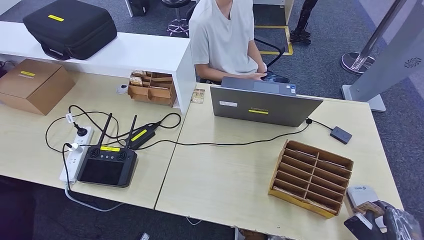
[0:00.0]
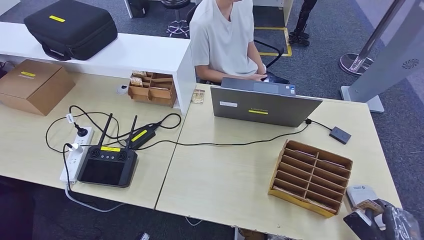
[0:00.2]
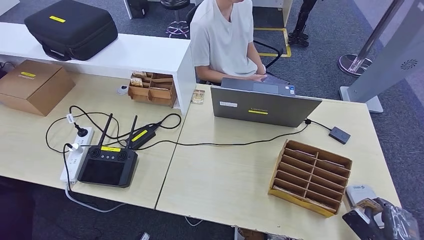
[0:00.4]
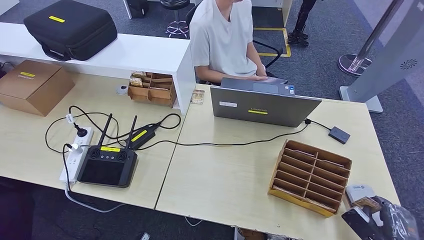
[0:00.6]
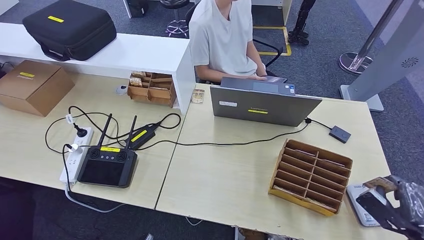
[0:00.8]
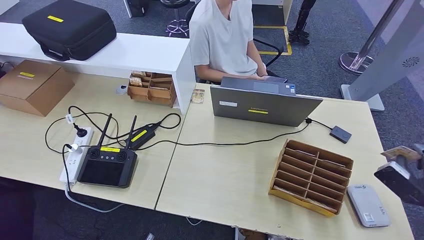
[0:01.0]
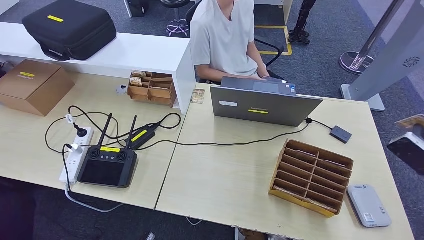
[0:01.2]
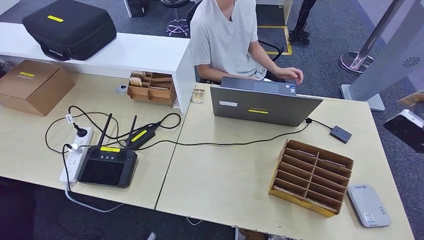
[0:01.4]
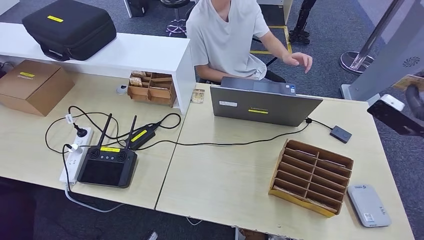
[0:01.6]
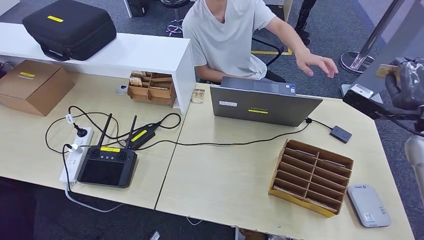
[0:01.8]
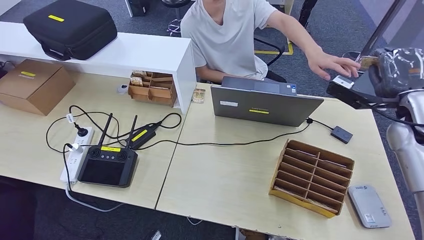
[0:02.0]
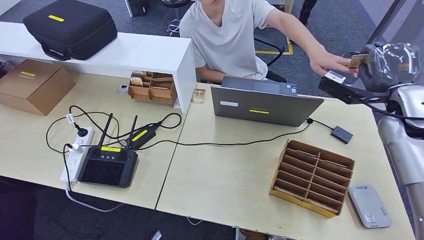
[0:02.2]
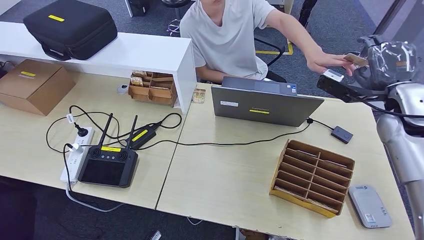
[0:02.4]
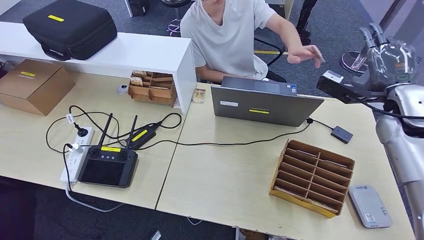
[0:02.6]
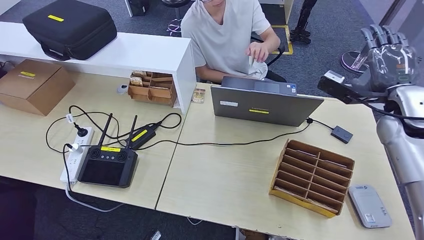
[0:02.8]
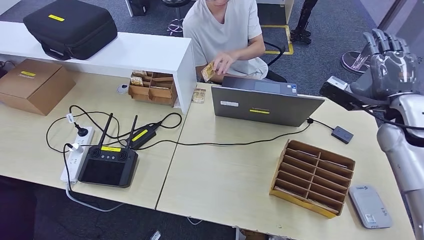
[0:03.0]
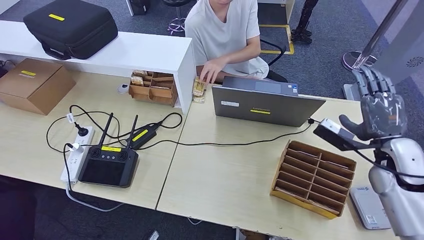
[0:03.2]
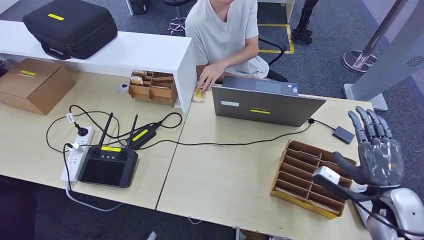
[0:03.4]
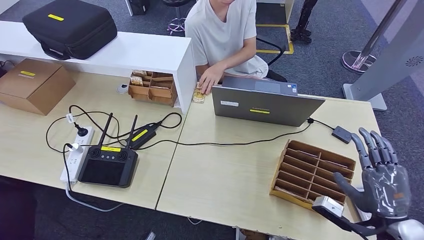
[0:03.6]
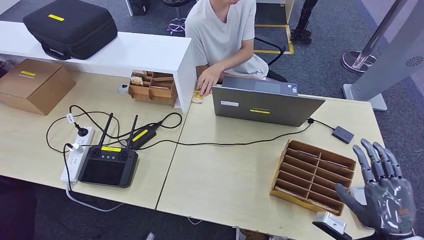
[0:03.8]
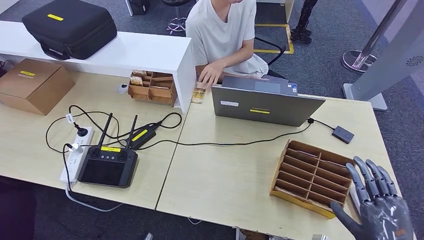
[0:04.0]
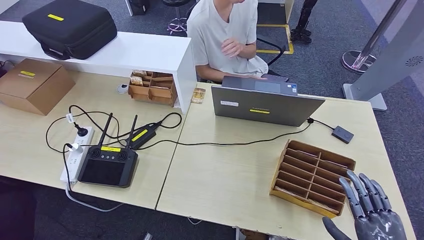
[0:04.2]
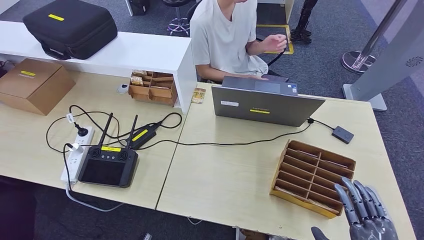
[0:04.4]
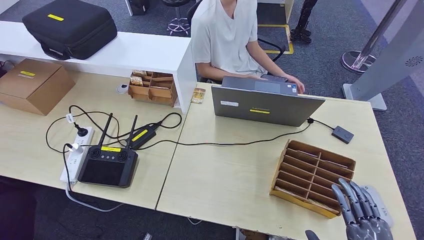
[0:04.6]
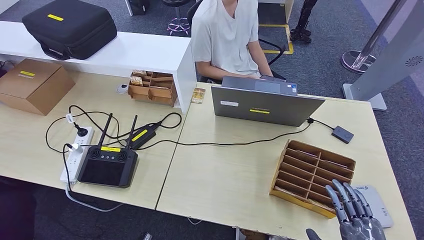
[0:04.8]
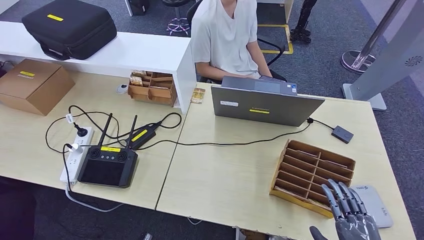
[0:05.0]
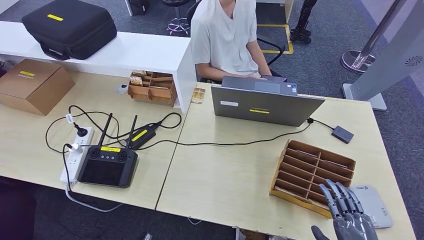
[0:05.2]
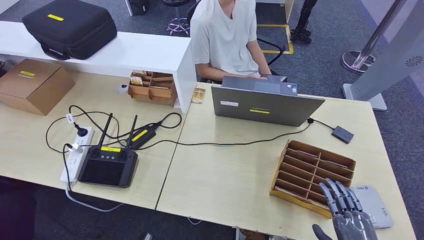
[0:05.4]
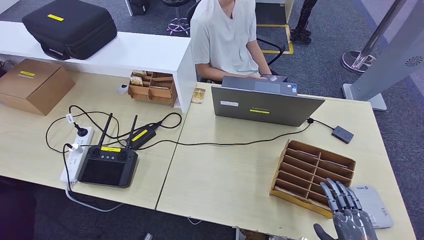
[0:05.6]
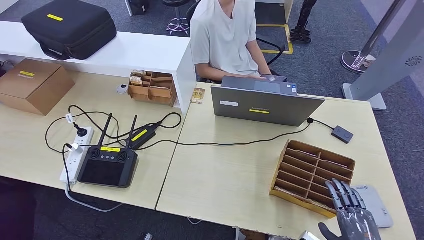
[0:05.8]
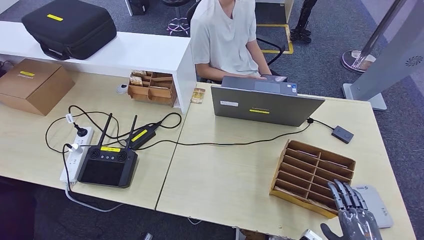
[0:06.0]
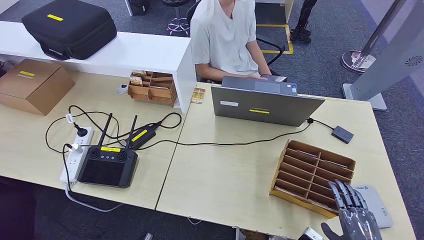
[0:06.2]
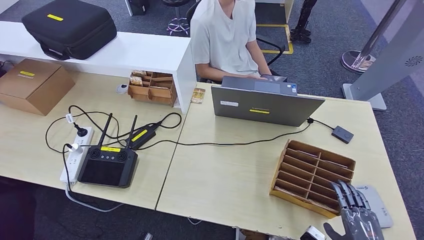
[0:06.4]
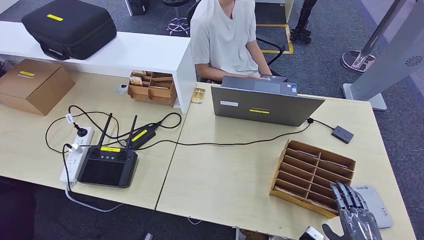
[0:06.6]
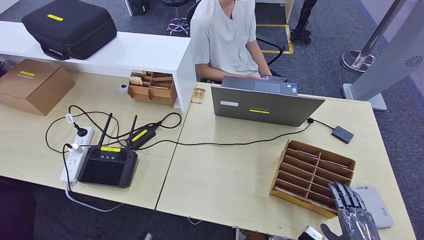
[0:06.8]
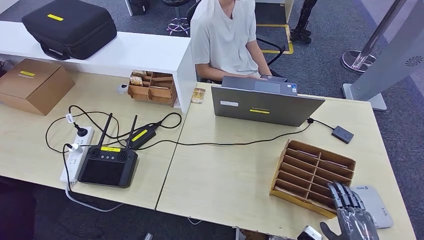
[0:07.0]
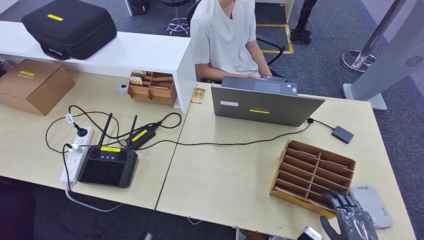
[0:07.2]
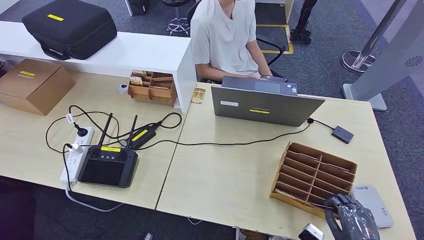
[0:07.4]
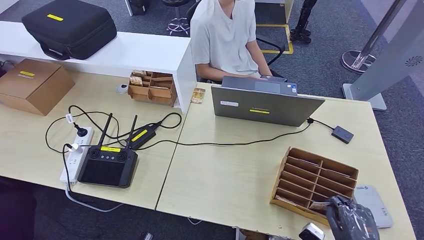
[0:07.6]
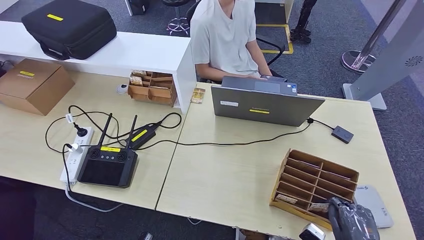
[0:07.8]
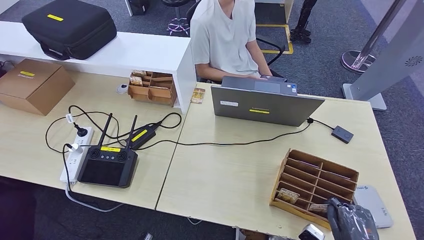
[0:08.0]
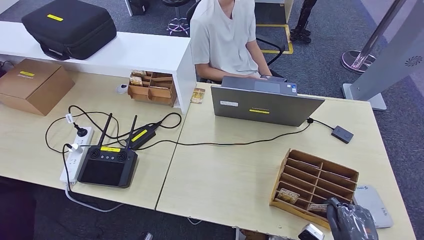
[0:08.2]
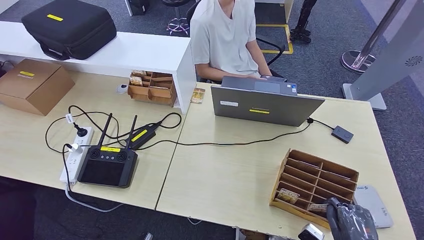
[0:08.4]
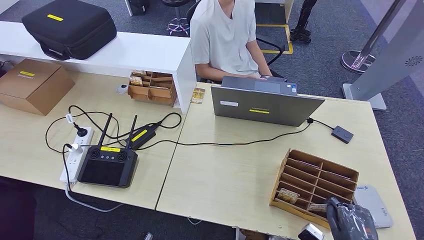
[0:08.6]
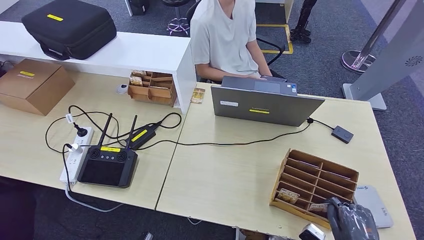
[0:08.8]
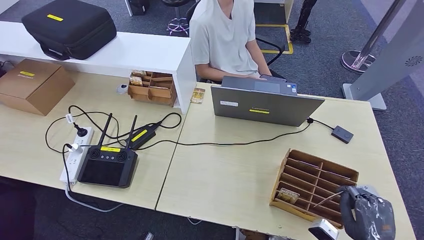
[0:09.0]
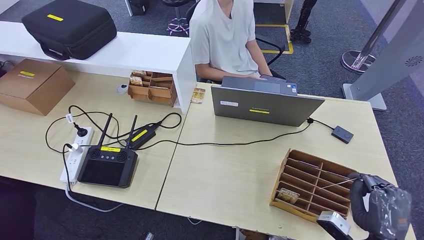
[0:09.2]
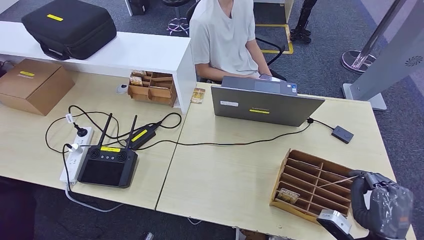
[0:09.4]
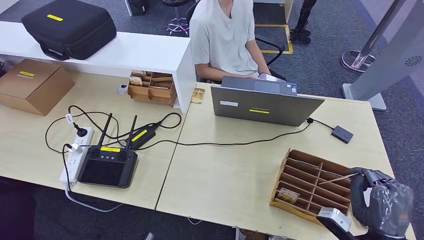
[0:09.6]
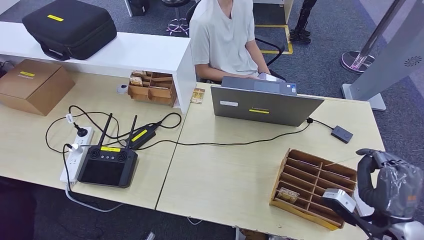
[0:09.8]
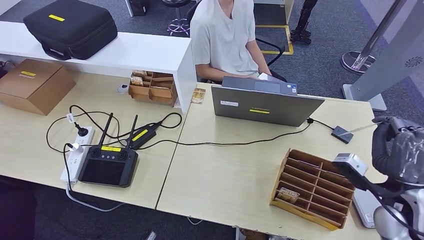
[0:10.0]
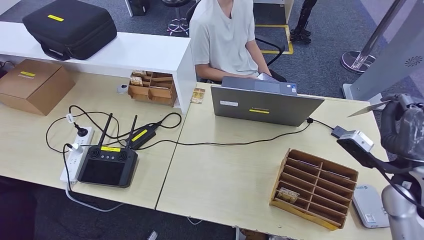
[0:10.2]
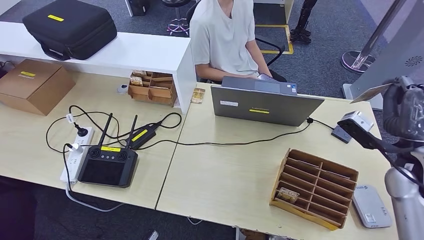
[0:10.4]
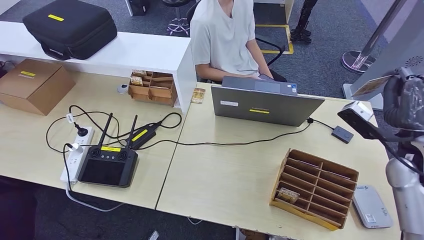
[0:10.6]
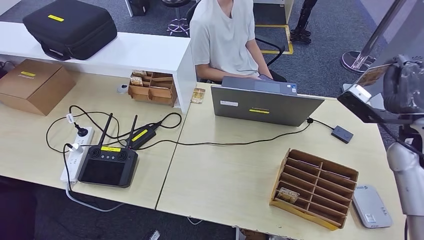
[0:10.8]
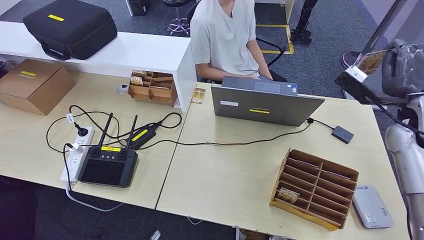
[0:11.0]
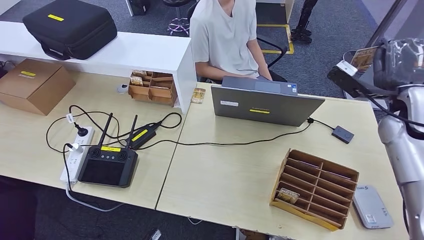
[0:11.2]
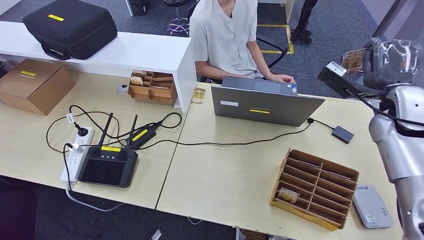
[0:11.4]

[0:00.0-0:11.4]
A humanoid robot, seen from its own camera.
Step, 0:00.0 to 0:02.4: Hand the ID card to the person.
Step, 0:02.6 to 0:10.0: Pick up the room key from the key card box.
0:00.0 to 0:01.4: The right hand moves upward and forward, approximately 30 cm.
0:01.4 to 0:02.8: The right hand goes some 15 cm to the left and forward.
0:02.8 to 0:04.2: The right hand moves backward and downward, approximately 35 cm.
0:04.2 to 0:05.6: The right hand goes roughly 5 cm downward.
0:05.6 to 0:07.2: The hands stay close to where they were, moving slightly.
0:07.2 to 0:08.6: Neither hand changes place.
0:08.6 to 0:10.0: The right hand shifts roughly 20 cm upward and forward.
0:10.0 to 0:11.4: The right hand travels forward and upward by roughly 20 cm.

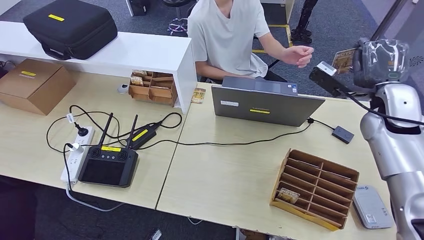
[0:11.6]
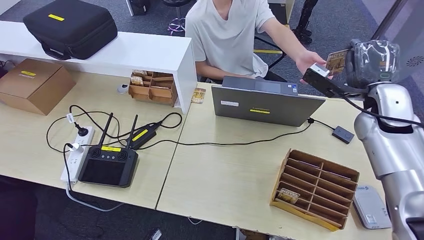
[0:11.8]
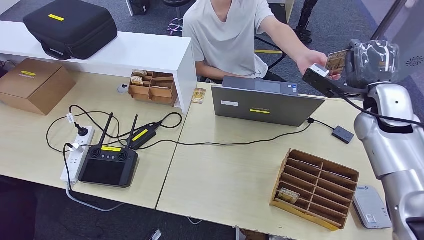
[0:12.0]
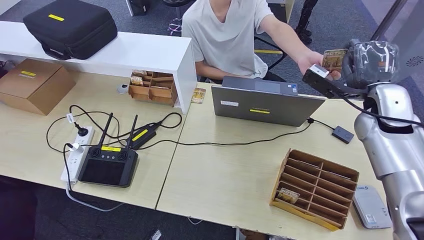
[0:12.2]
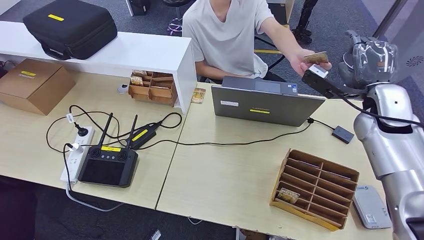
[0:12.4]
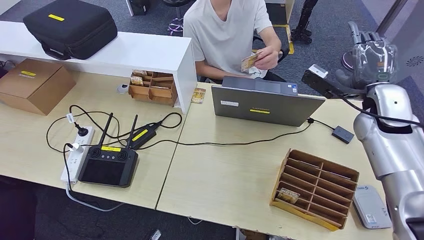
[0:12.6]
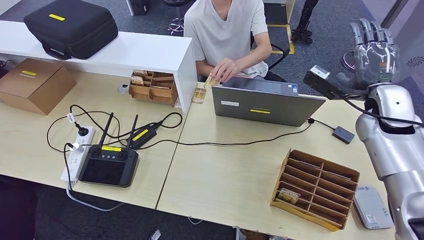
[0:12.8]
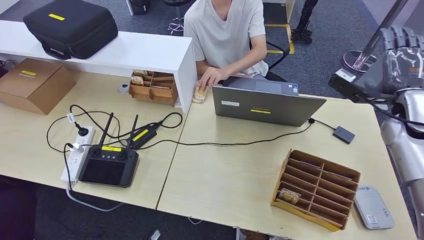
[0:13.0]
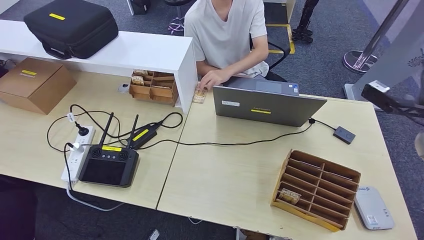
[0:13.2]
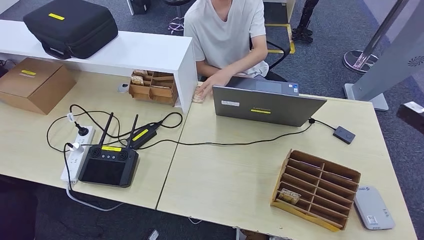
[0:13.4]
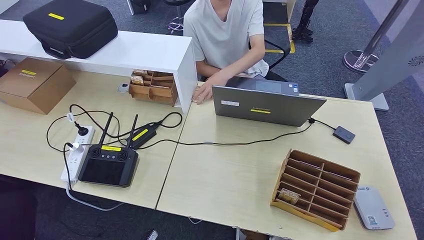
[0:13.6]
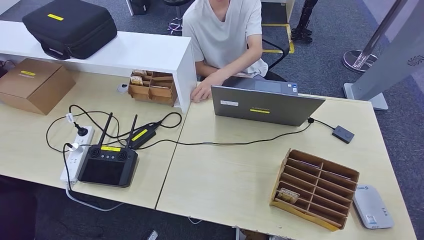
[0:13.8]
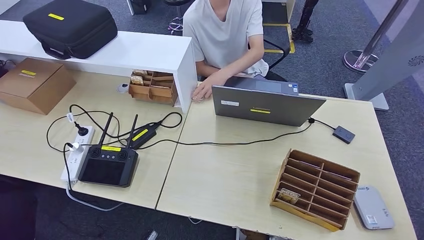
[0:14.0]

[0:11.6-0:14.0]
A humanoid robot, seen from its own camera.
Step, 0:11.6 to 0:14.0: Hand the room key to the person.
0:11.6 to 0:12.8: The hands move only a little.
0:12.8 to 0:14.0: The right hand travels to the right by approximately 35 cm.

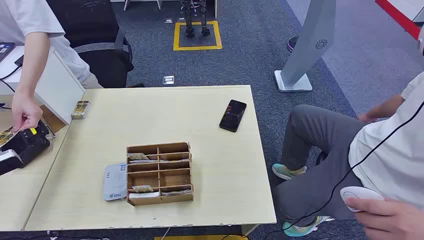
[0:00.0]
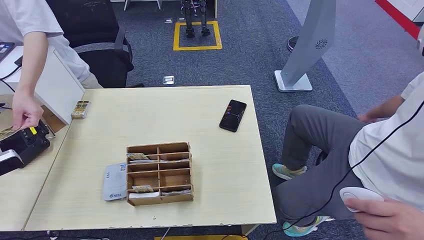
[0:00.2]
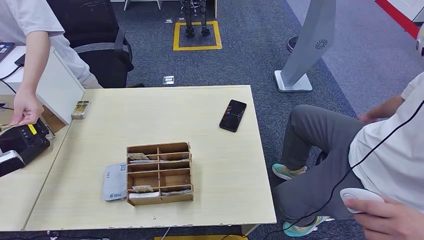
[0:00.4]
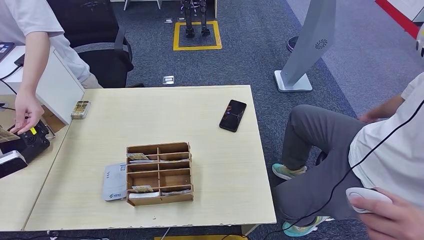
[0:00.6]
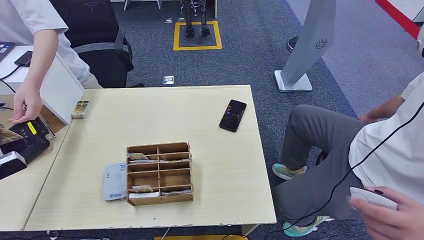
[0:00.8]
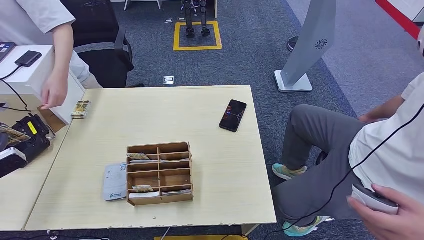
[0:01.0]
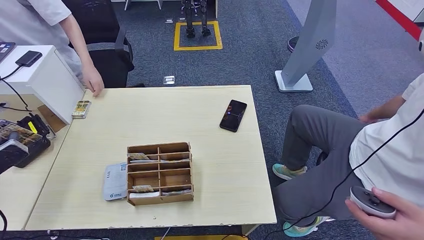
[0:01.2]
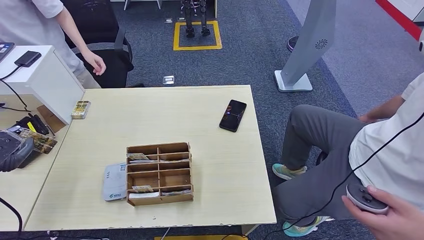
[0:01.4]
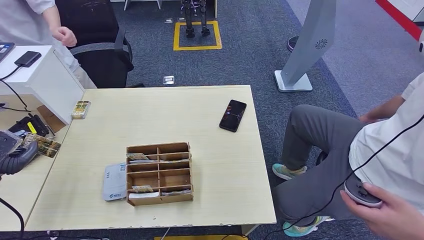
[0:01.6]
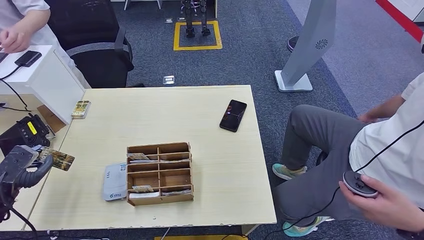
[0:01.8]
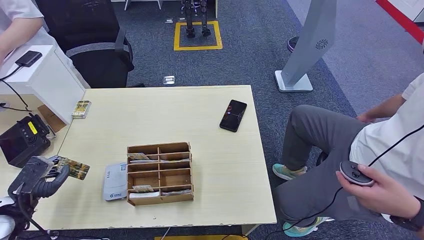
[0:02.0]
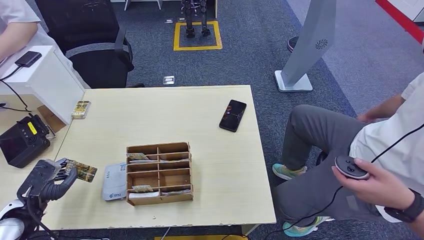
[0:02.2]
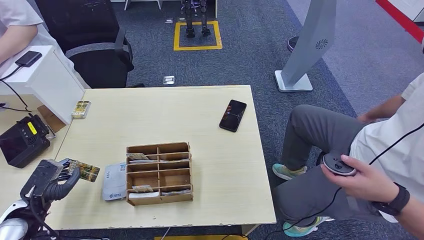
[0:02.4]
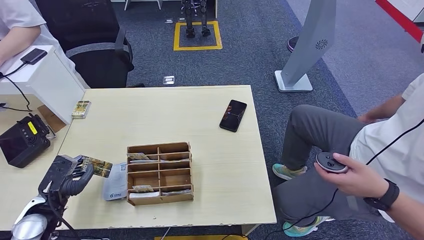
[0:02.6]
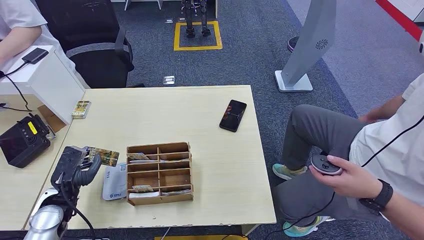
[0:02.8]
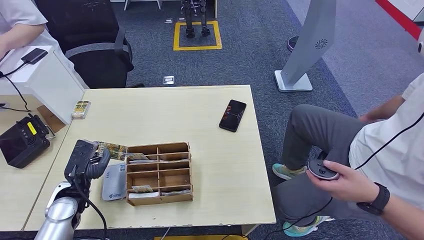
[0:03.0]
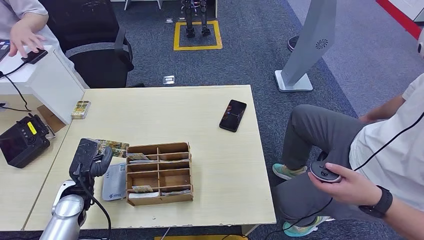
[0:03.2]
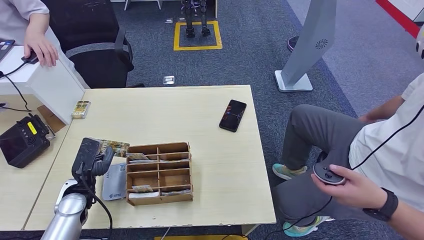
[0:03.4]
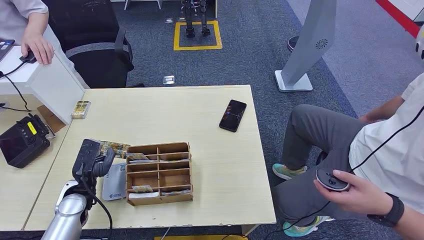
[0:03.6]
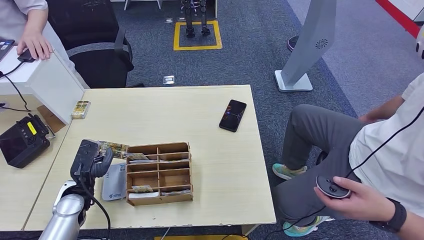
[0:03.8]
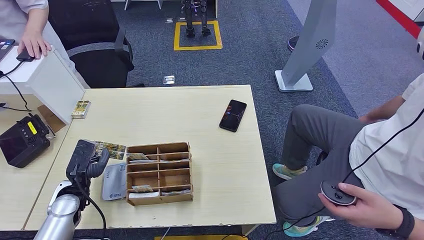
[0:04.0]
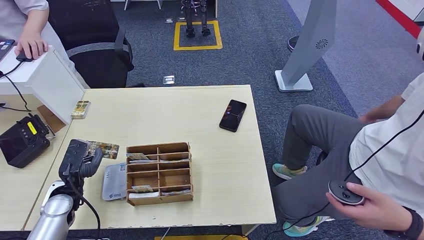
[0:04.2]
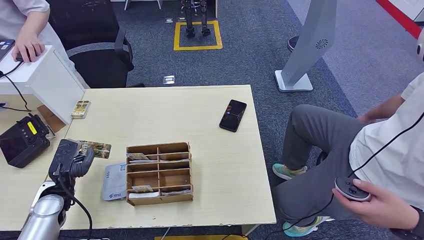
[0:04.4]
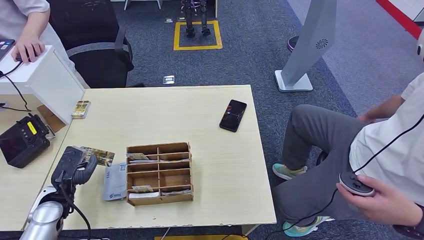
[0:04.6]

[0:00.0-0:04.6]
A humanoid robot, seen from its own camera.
Step, 0:00.0 to 0:00.8: Take the ID card from the person's hand.
0:01.6 to 0:03.0: The left hand moves to the right and downward, roughly 20 cm.
0:03.0 to 0:04.6: The hands stay close to where they were, moving slightly.
